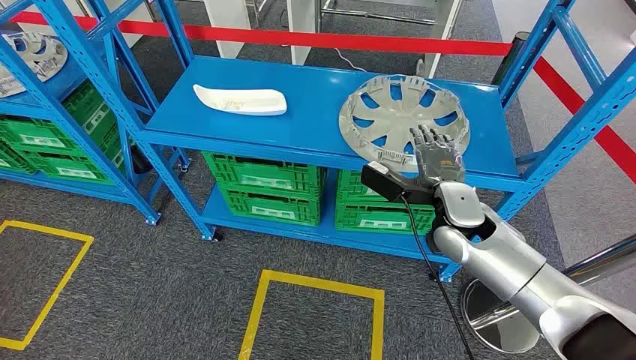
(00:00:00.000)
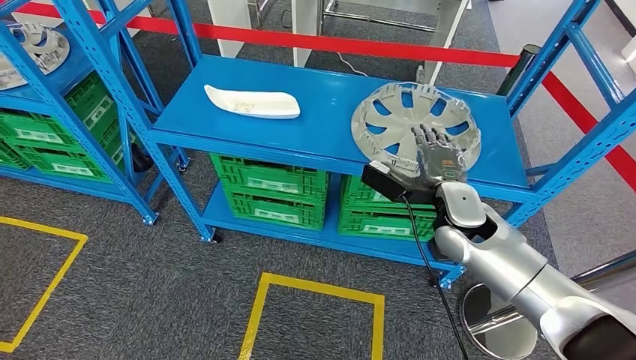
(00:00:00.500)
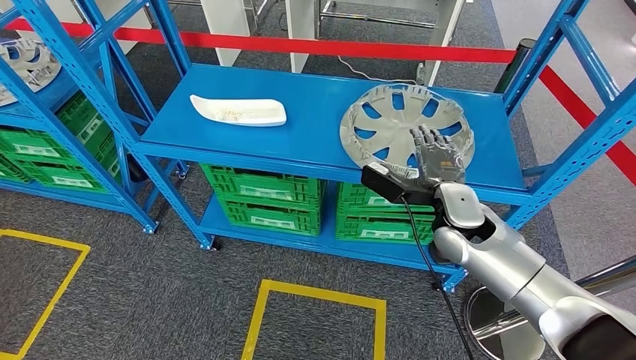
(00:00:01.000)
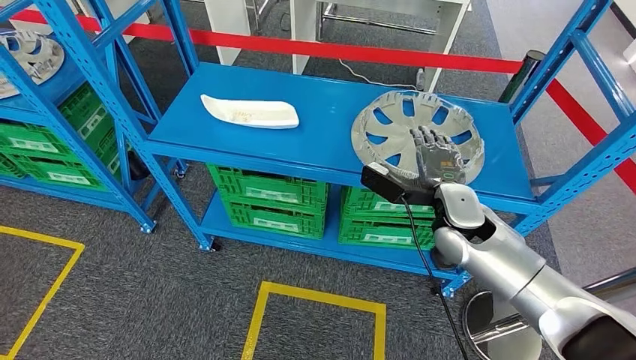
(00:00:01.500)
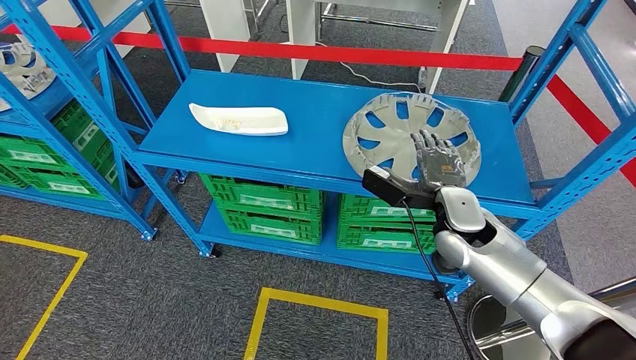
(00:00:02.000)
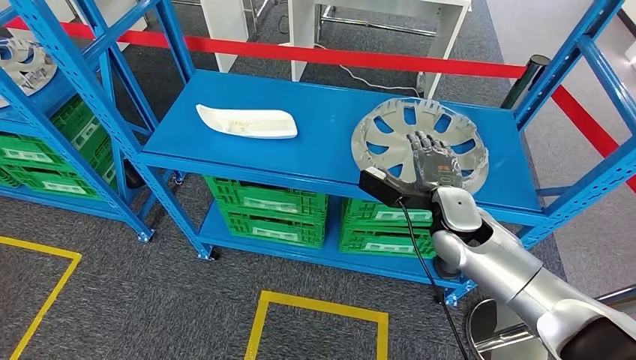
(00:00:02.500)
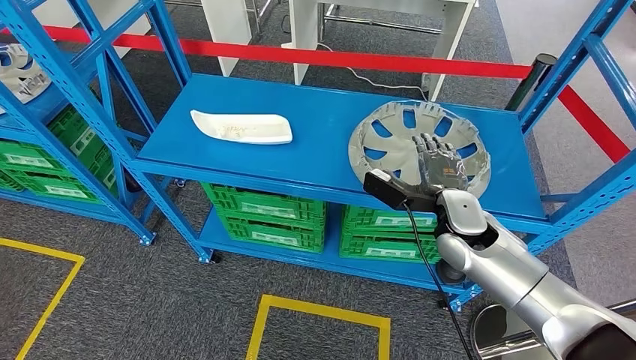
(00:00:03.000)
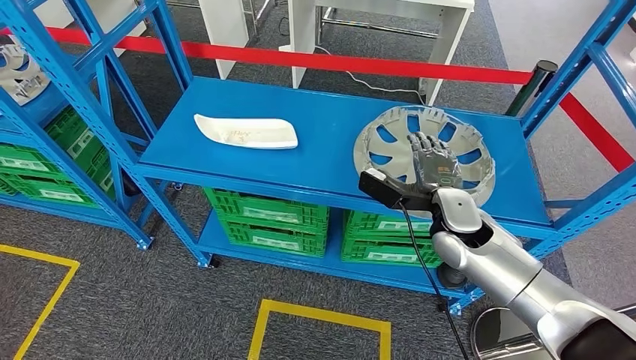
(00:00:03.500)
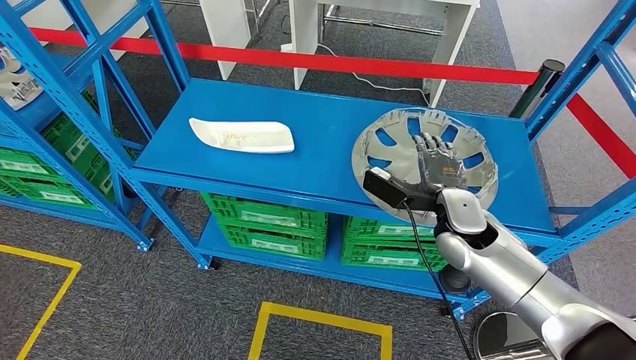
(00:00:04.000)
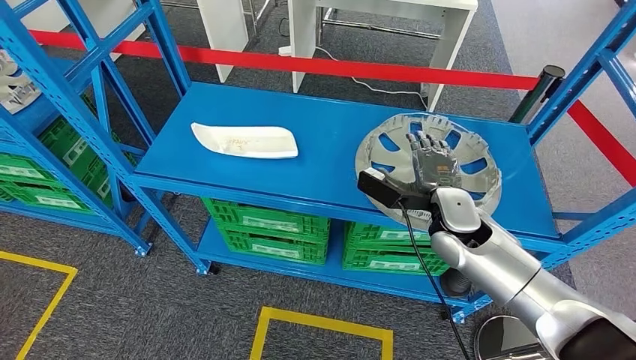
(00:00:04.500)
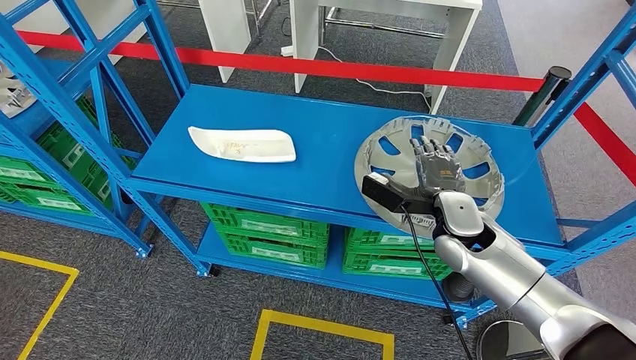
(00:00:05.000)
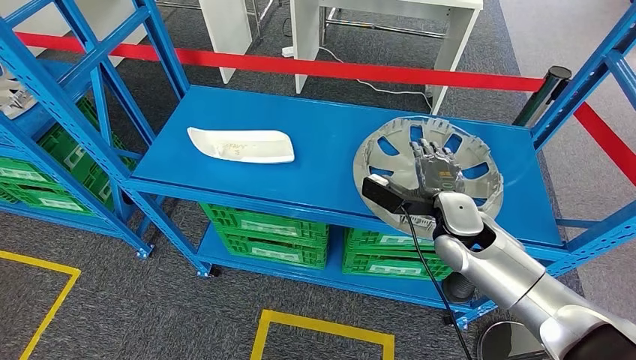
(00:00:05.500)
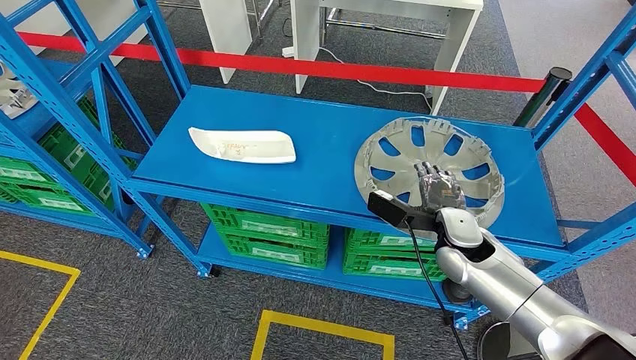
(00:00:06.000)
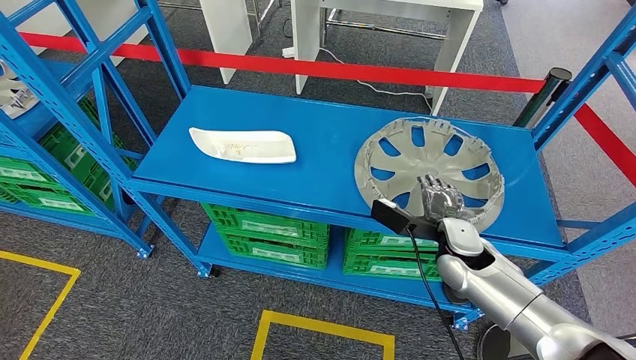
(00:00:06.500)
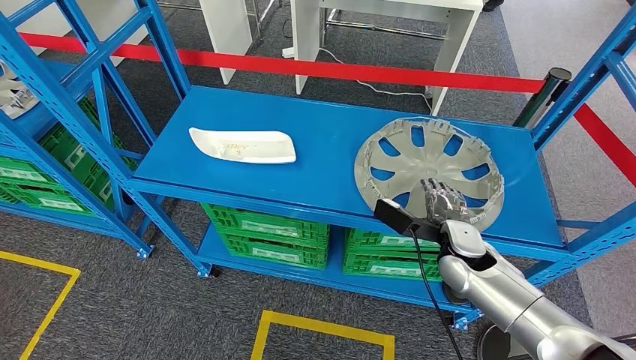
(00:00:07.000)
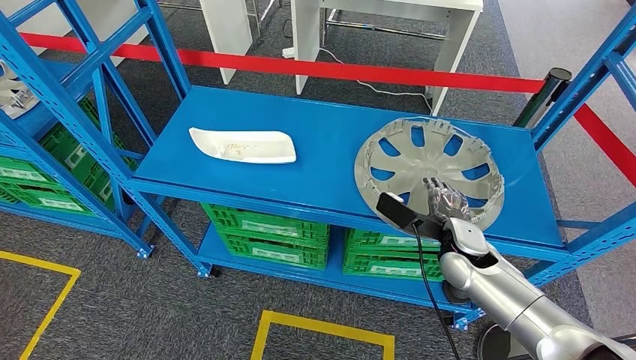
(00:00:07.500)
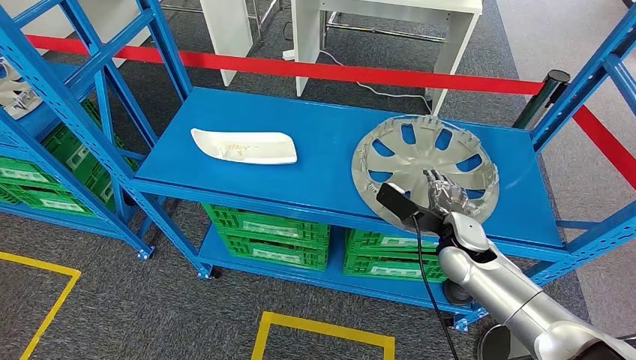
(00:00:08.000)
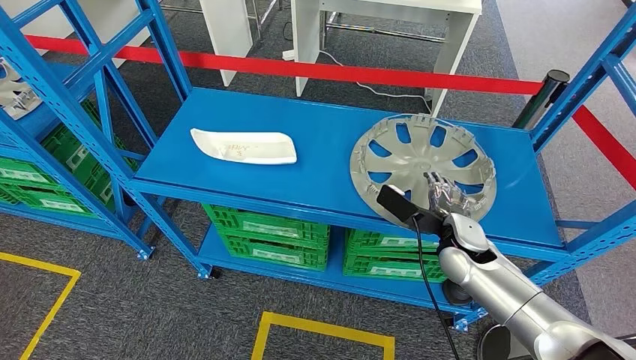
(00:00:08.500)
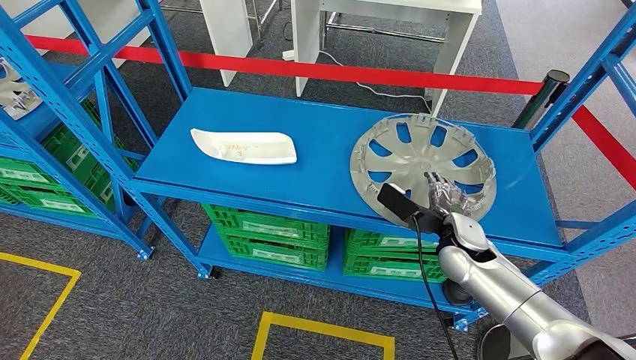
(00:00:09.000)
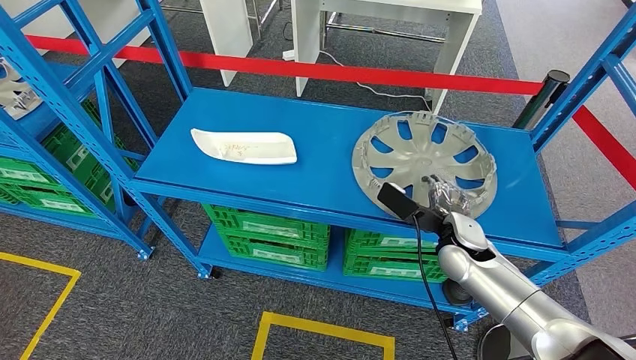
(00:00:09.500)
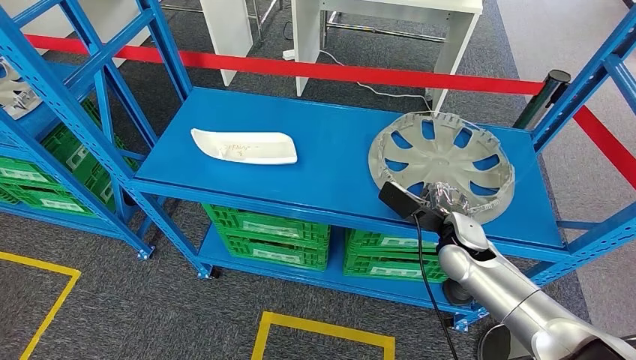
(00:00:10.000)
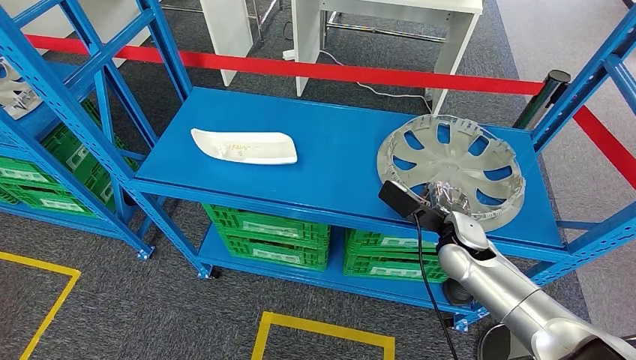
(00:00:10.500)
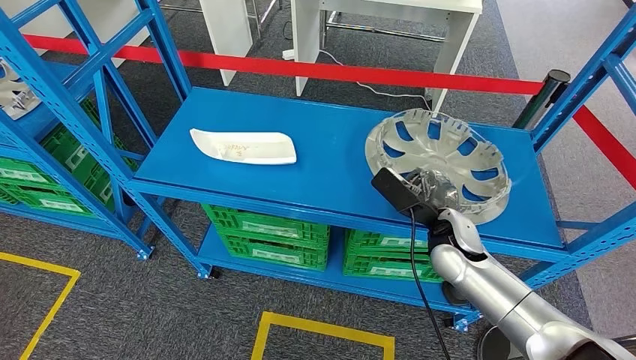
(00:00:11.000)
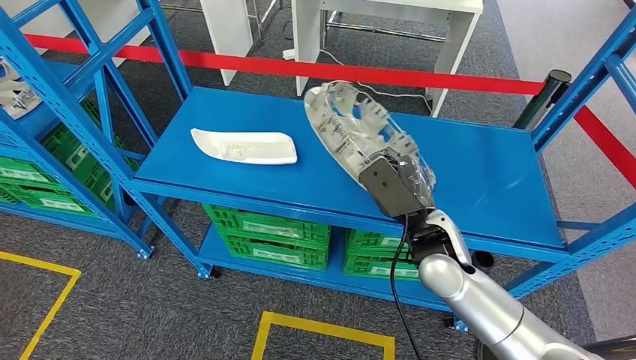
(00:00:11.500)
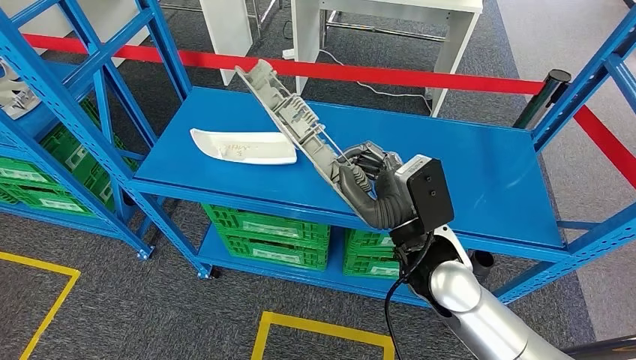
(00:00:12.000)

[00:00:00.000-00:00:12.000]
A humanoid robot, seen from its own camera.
00:00:06.000 to 00:00:08.000: The hands move only a little.
00:00:08.000 to 00:00:10.000: The two hands keep their place.
00:00:10.000 to 00:00:12.000: The right hand is displaced to the left, upward and backward by roughly 20 cm.

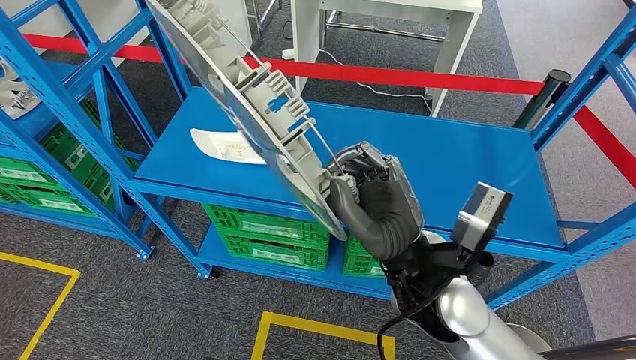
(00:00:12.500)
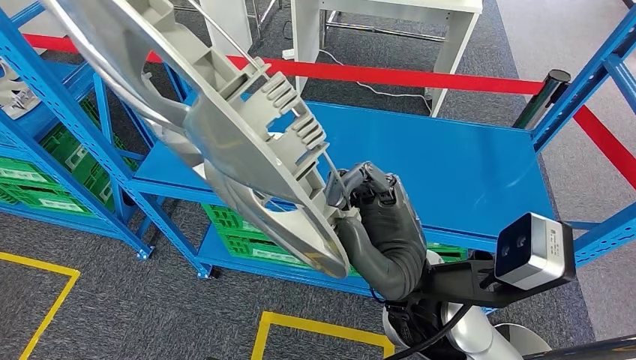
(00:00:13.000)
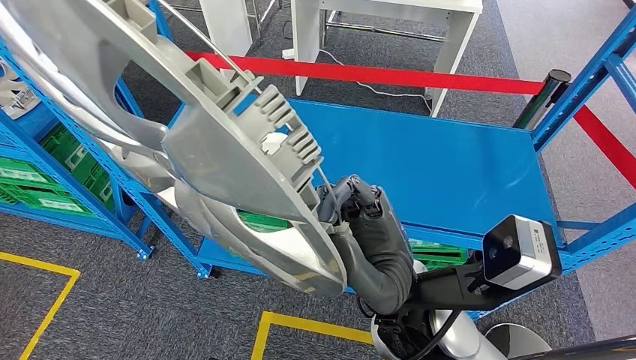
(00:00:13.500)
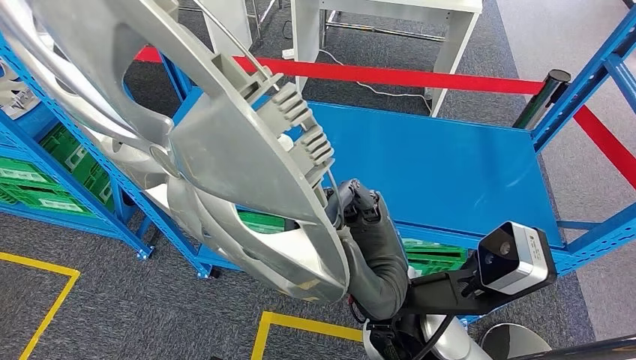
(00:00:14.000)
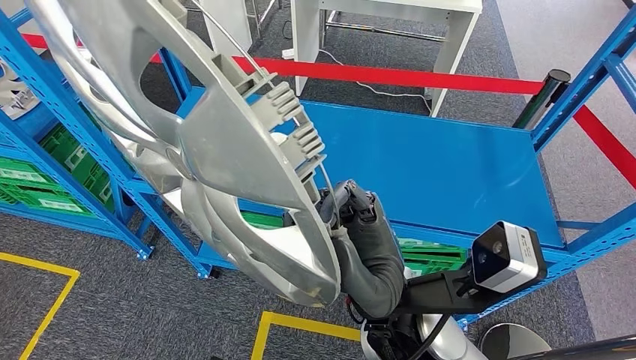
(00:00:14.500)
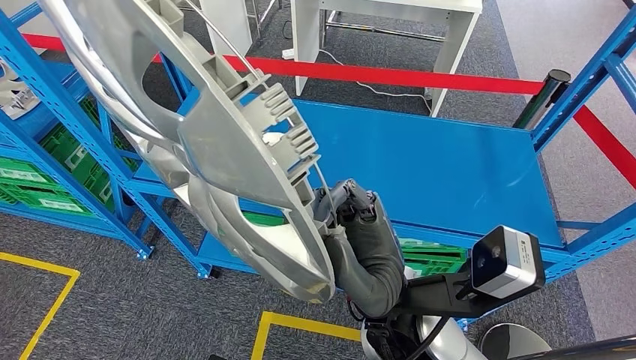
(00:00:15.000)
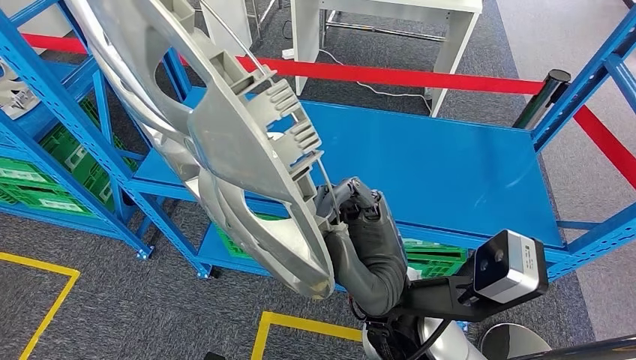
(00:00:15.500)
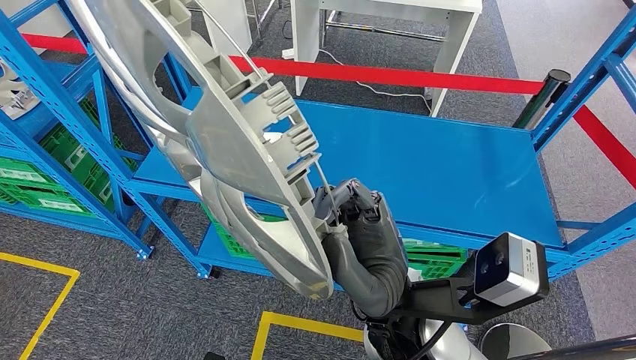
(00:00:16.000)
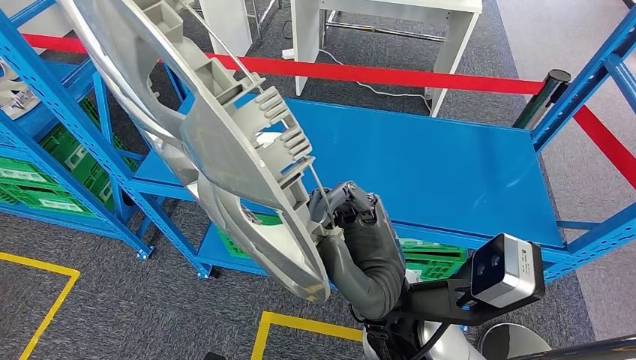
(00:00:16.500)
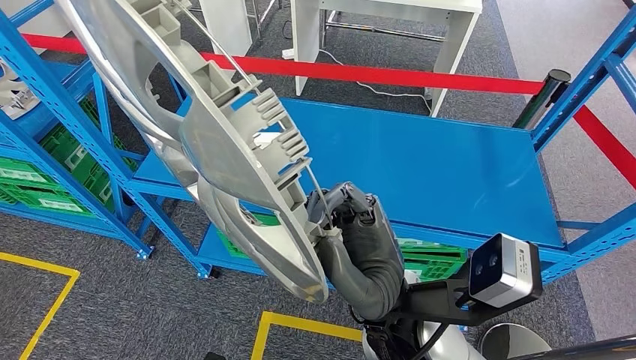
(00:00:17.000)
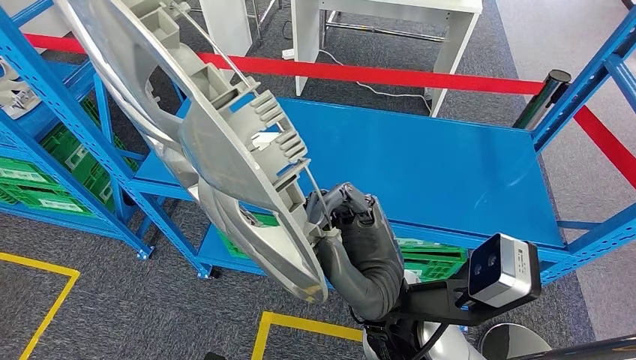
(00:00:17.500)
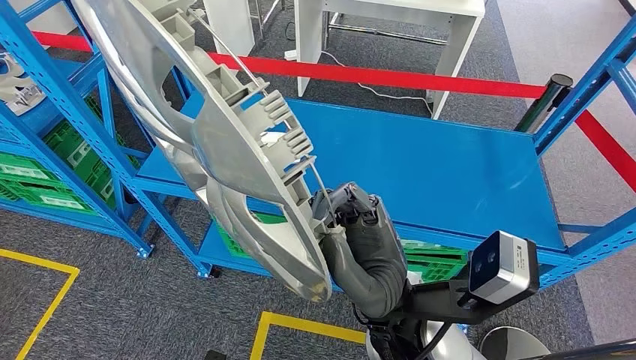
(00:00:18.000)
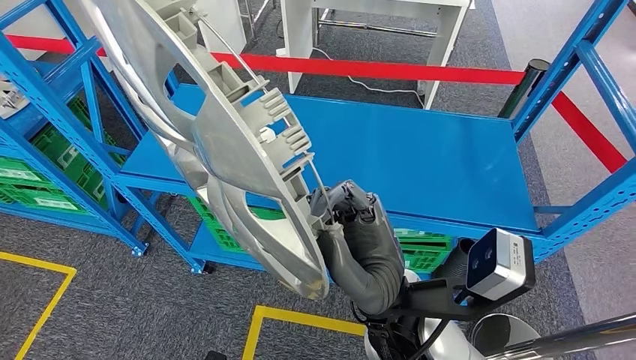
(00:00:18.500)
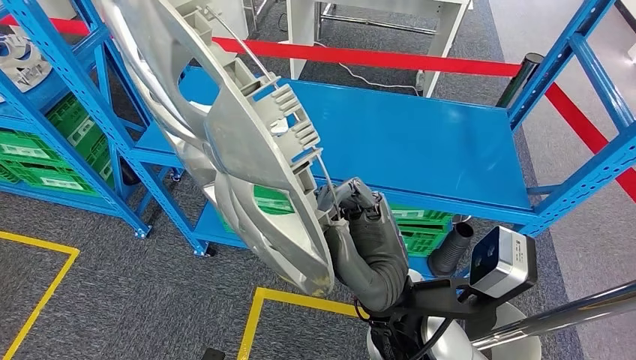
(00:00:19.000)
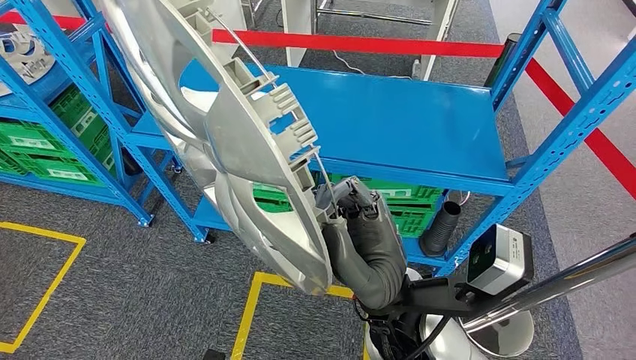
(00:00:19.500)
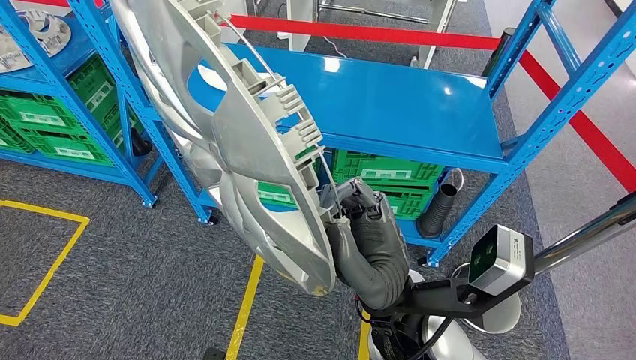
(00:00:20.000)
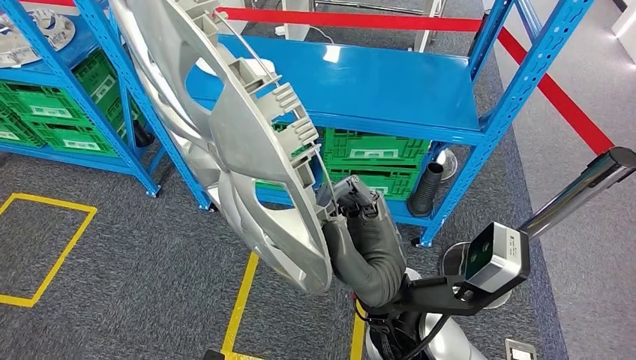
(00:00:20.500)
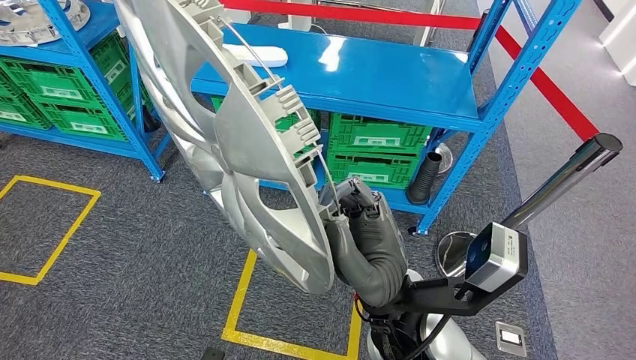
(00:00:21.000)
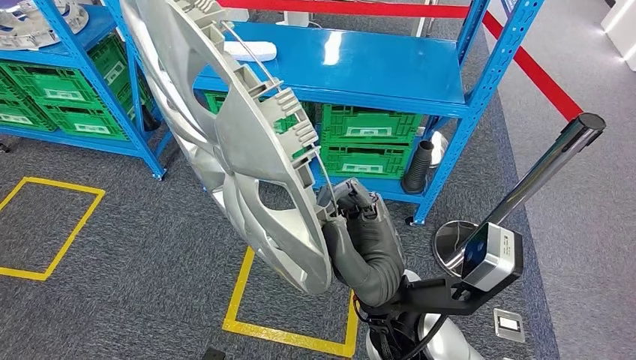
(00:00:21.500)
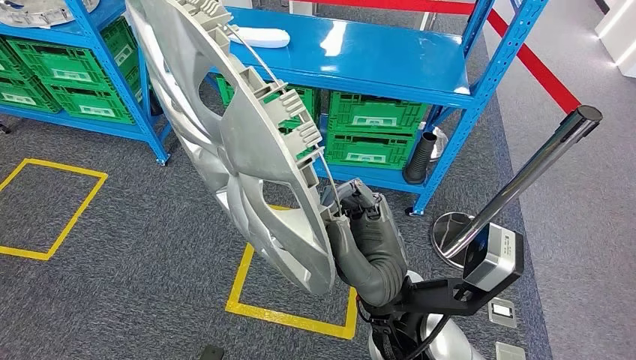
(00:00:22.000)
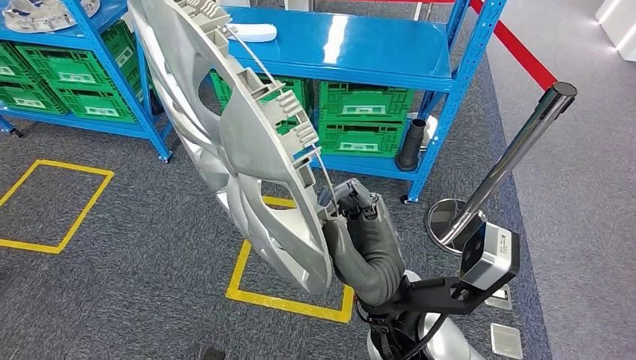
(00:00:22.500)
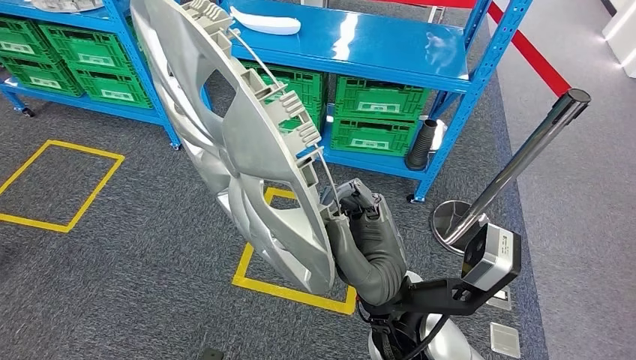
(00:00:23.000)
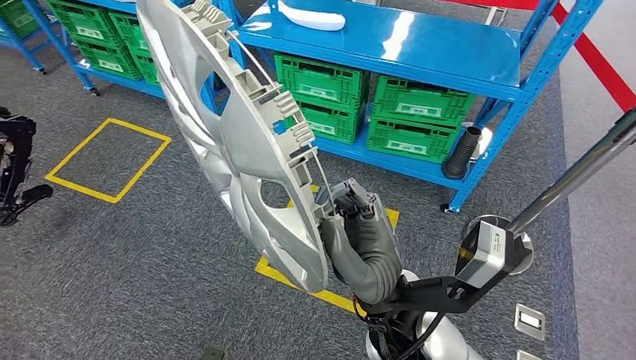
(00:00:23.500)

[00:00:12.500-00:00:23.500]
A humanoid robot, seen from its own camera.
00:00:14.500 to 00:00:16.000: The hands stay close to where they were, moving slightly.
